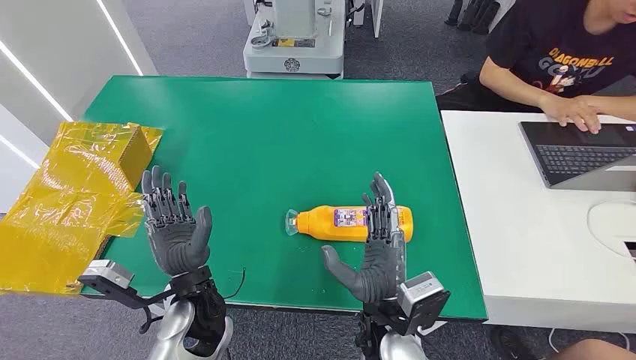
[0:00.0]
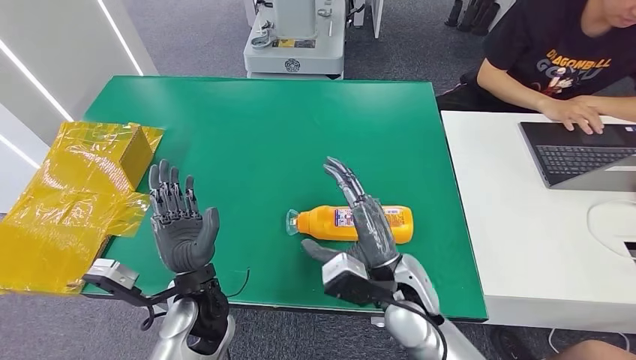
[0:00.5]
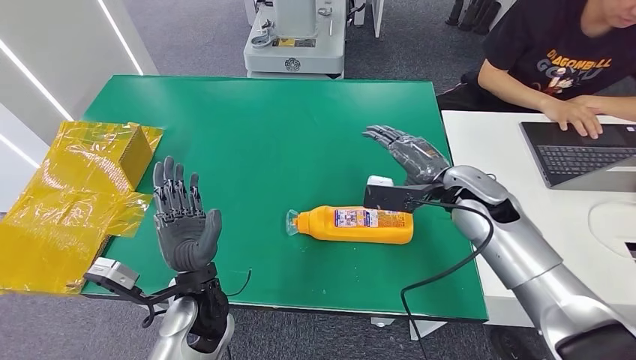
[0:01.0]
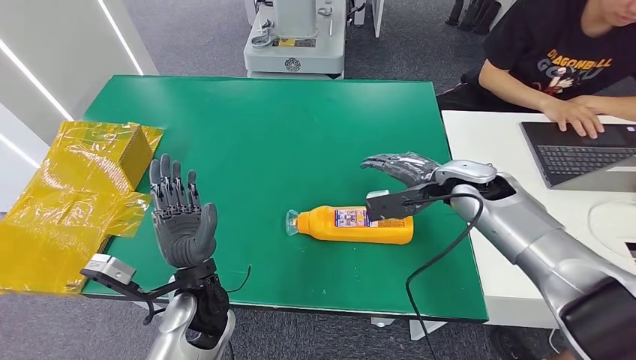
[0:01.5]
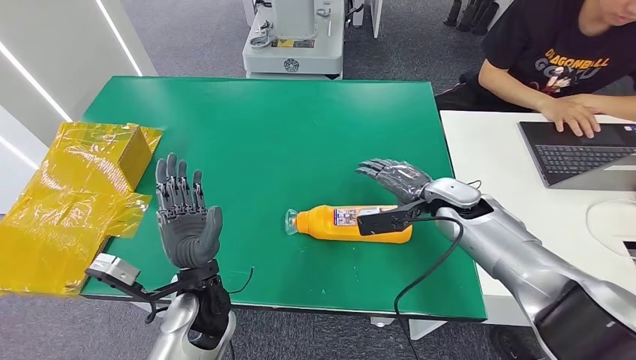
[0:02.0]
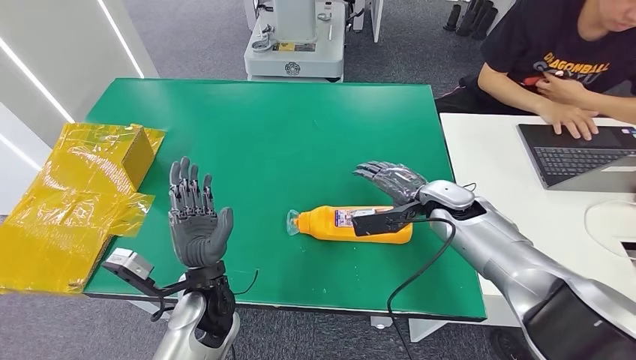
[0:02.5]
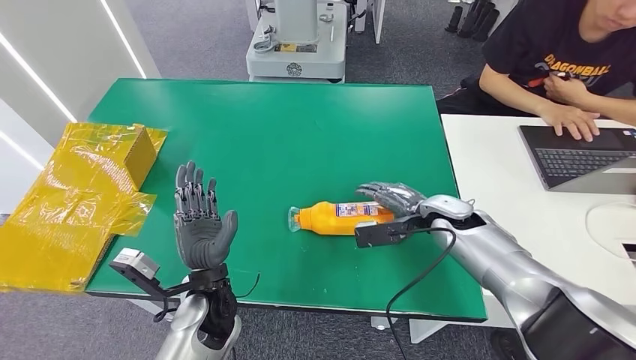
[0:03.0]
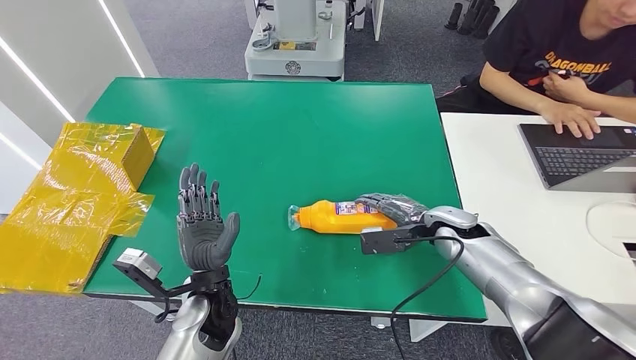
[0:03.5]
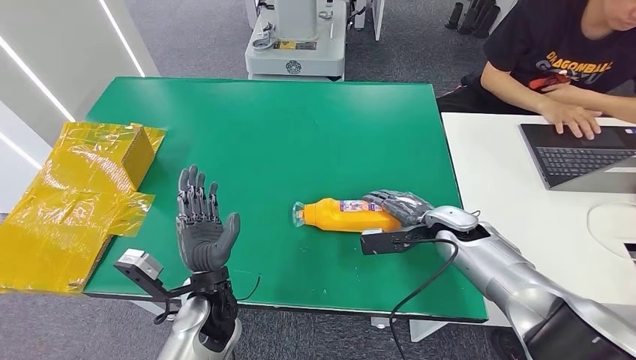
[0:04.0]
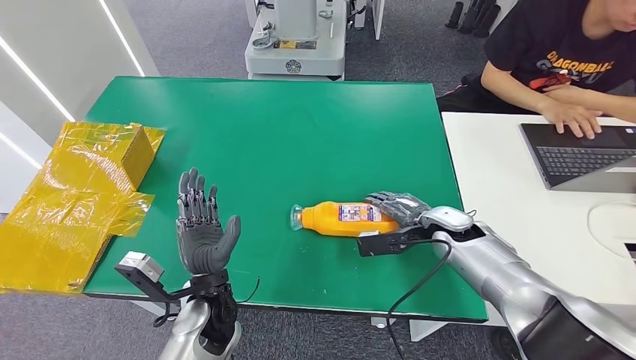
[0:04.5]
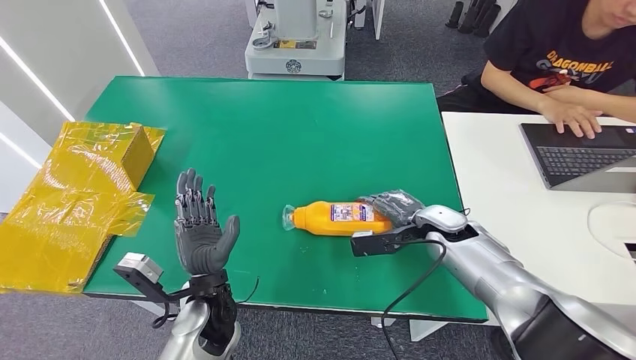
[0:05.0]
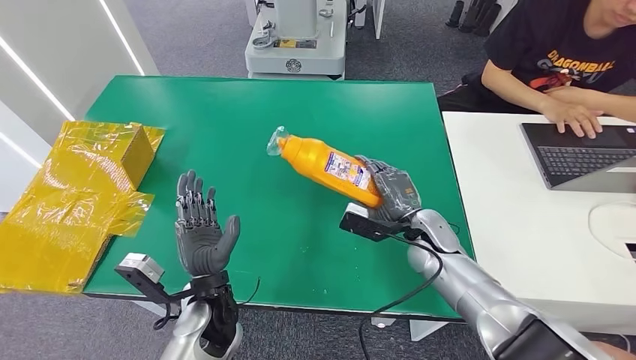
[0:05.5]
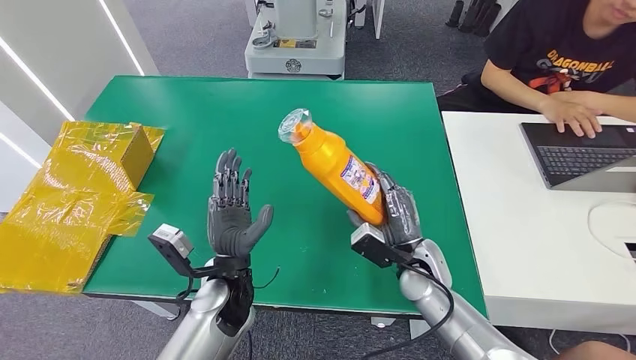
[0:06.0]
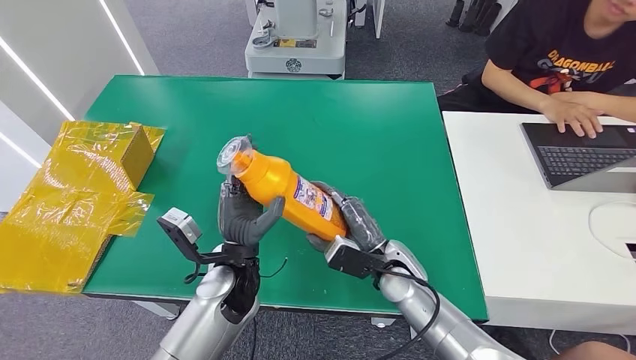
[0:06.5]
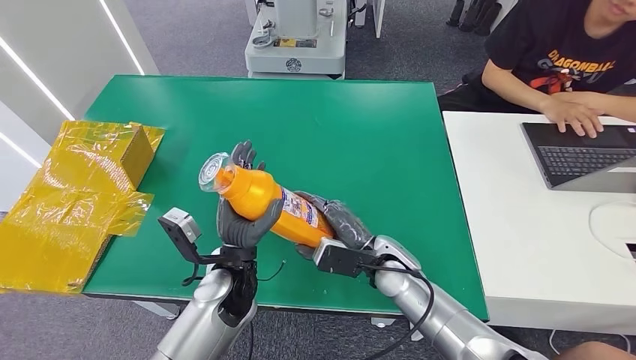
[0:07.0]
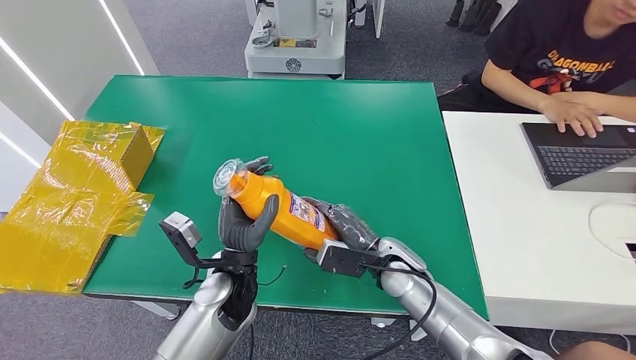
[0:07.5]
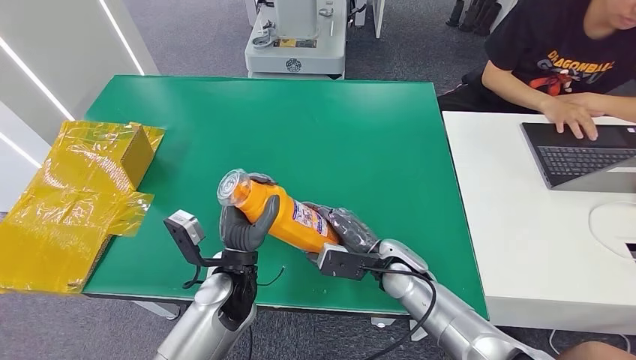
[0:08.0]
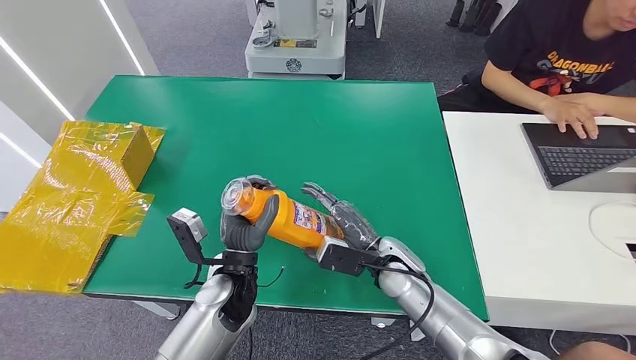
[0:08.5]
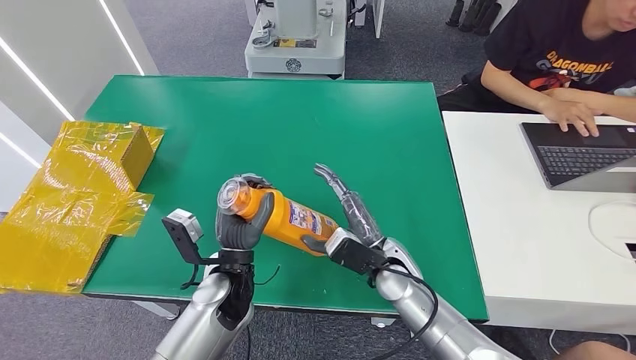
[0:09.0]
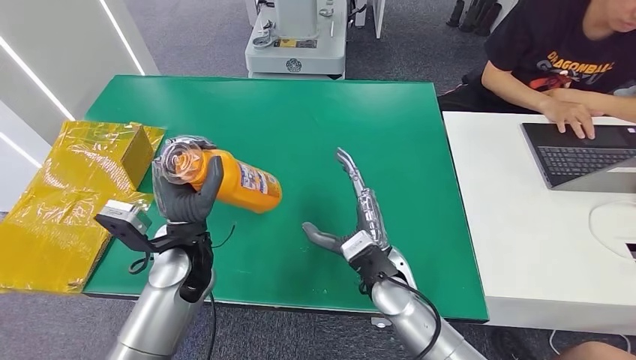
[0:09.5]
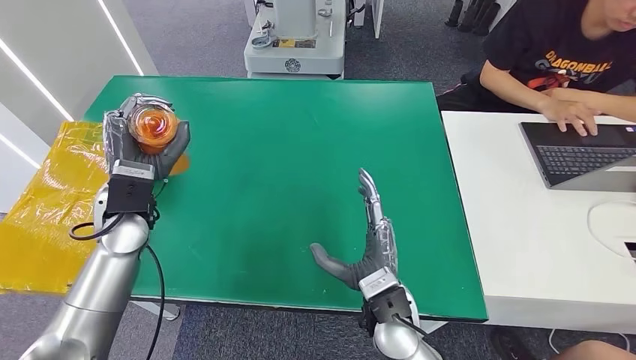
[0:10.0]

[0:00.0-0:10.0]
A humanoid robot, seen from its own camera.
Step, 0:00.0 to 0:05.5: Pick up the bottle from the table.
0:02.0 to 0:04.0: The right hand travels downward by some 5 cm.
0:04.0 to 0:06.0: The right hand goes roughly 10 cm to the left and backward.
0:08.0 to 0:10.0: The left hand goes approximately 20 cm to the left, upward and forward. Meanwhile the right hand moves backward, roughly 10 cm.

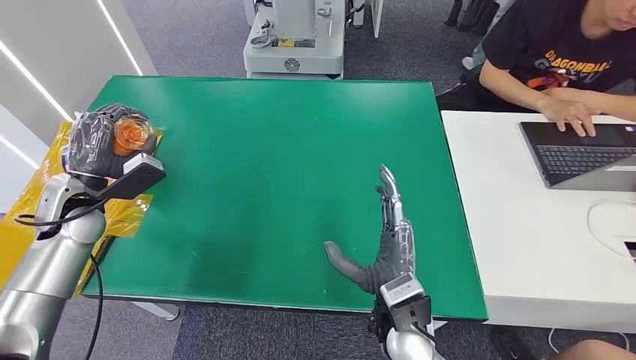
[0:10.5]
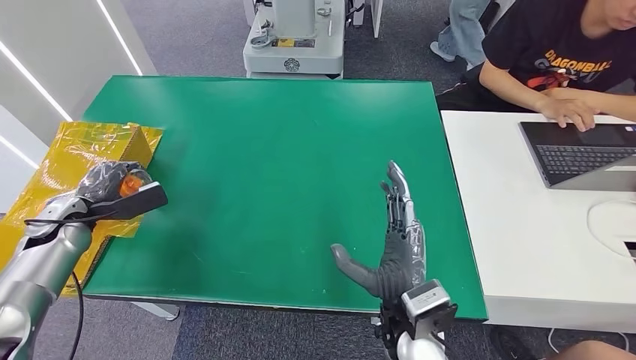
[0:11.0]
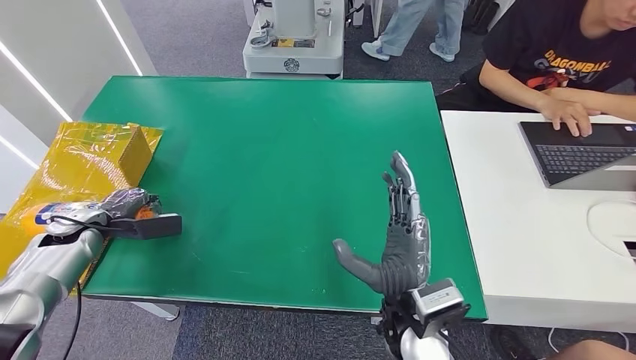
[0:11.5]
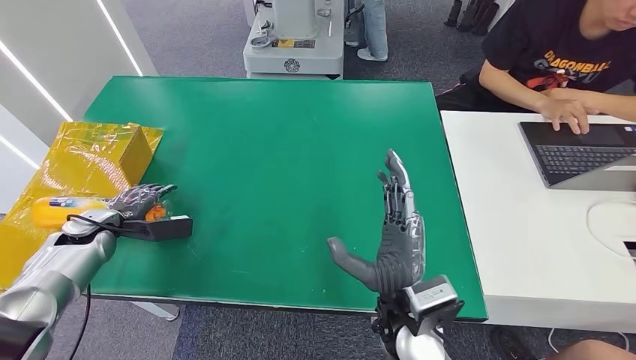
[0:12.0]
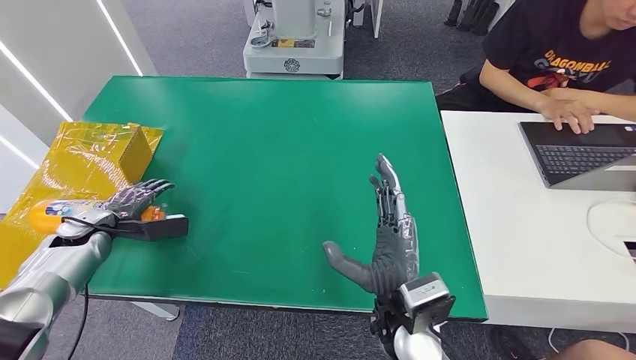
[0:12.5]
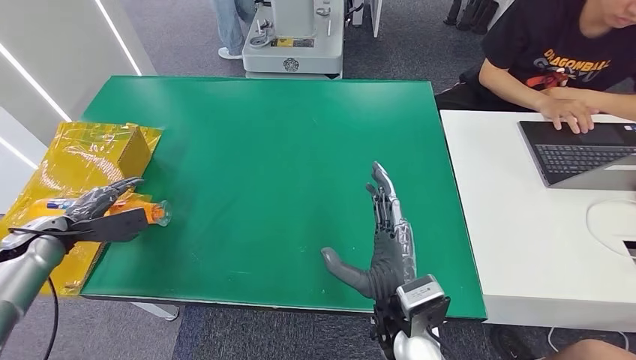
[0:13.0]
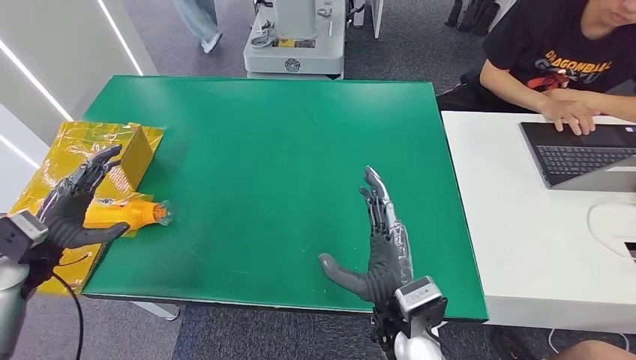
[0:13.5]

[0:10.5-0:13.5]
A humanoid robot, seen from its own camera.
Step, 0:10.5 to 0:13.5: Turn the bottle to the front side.
0:10.5 to 0:12.0: The left hand goes roughly 10 cm downward and to the left.
0:12.0 to 0:13.5: The left hand heads backward and upward, covering roughly 10 cm.
